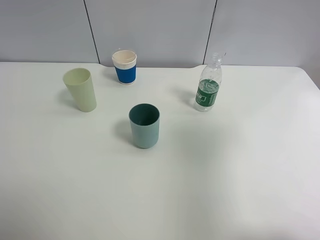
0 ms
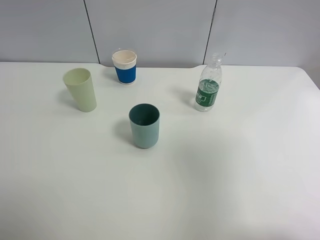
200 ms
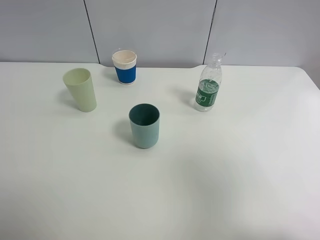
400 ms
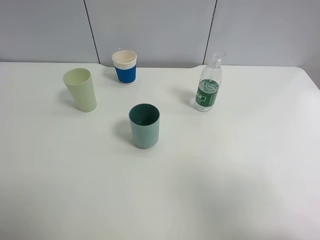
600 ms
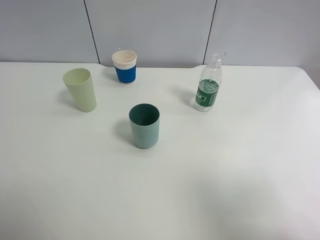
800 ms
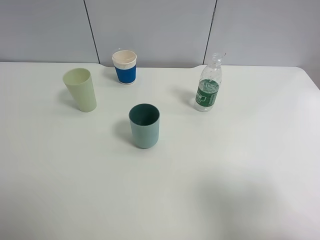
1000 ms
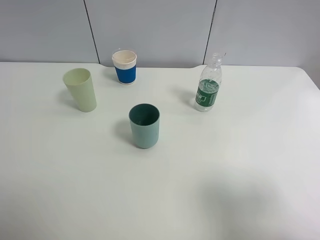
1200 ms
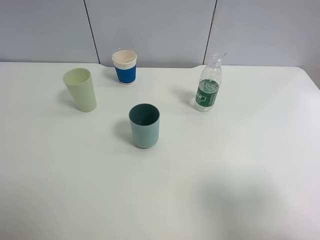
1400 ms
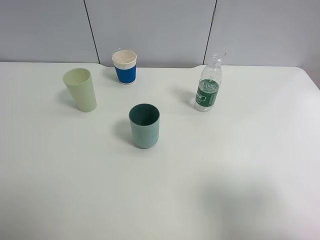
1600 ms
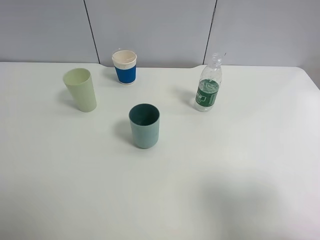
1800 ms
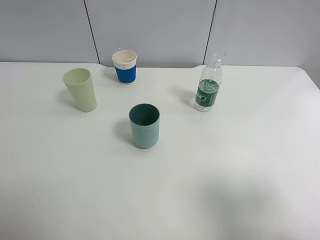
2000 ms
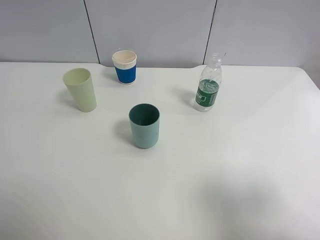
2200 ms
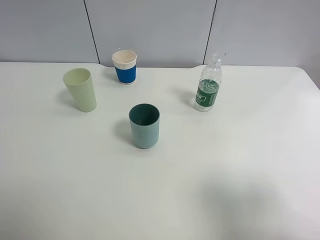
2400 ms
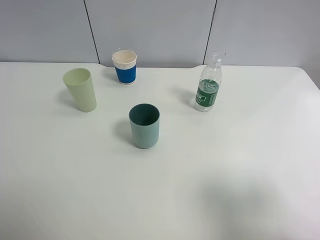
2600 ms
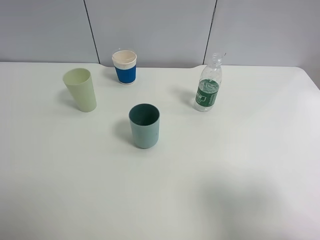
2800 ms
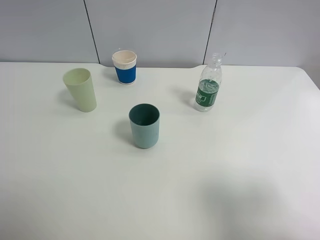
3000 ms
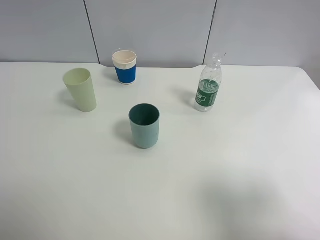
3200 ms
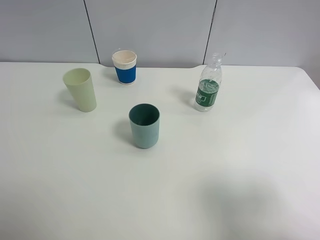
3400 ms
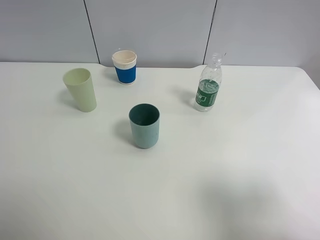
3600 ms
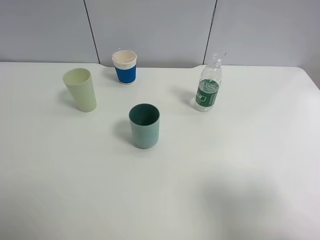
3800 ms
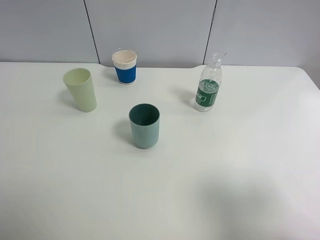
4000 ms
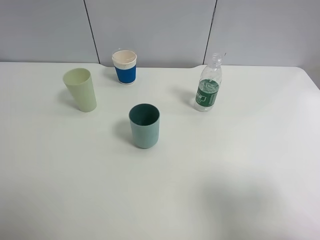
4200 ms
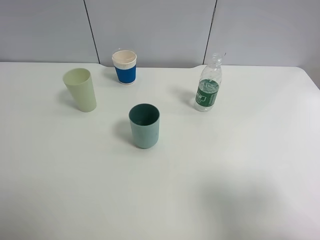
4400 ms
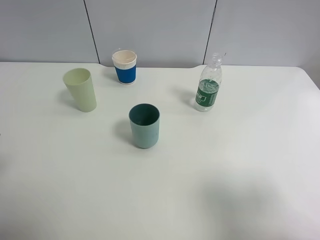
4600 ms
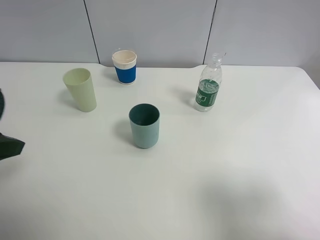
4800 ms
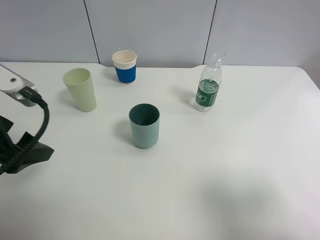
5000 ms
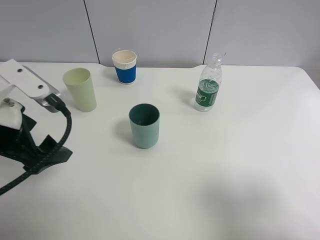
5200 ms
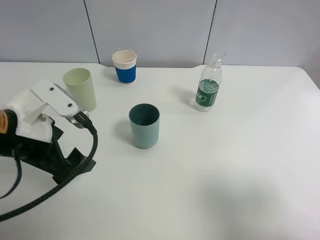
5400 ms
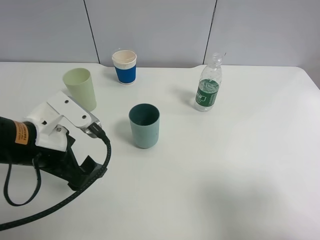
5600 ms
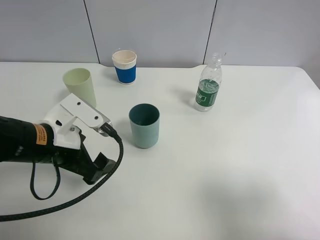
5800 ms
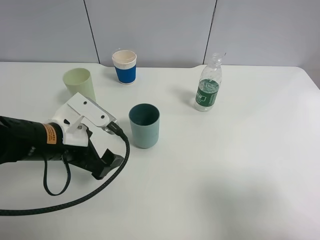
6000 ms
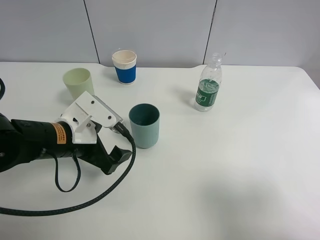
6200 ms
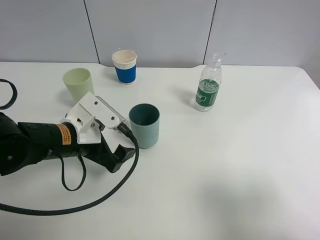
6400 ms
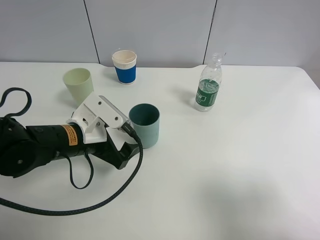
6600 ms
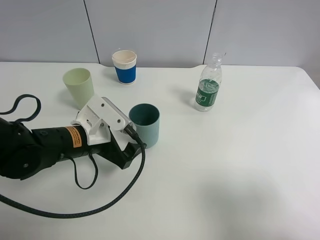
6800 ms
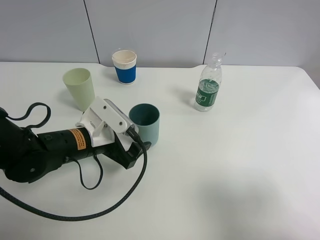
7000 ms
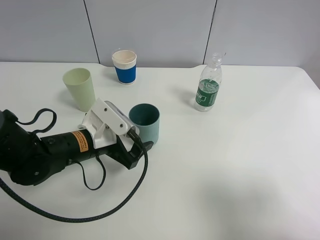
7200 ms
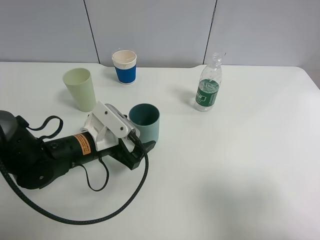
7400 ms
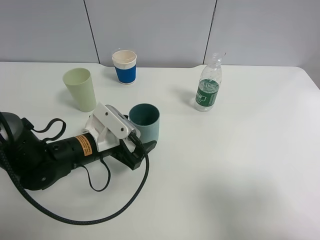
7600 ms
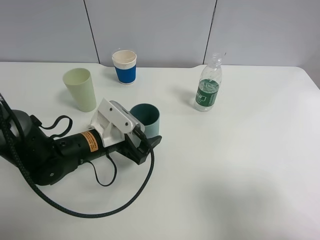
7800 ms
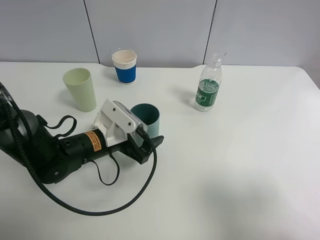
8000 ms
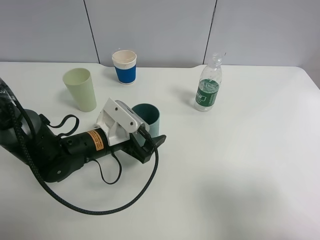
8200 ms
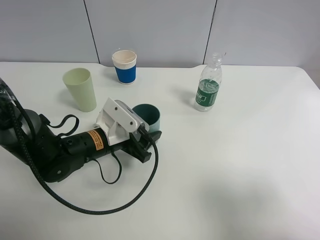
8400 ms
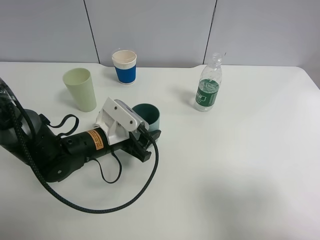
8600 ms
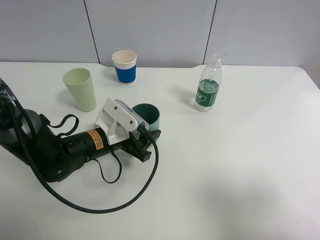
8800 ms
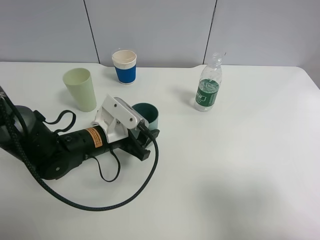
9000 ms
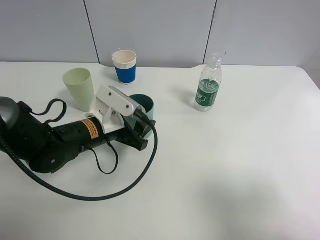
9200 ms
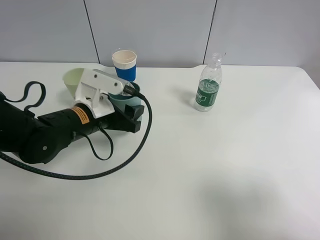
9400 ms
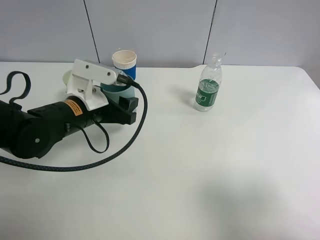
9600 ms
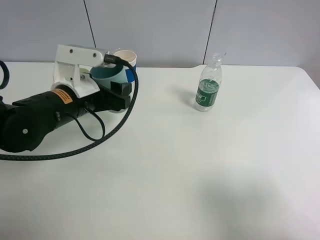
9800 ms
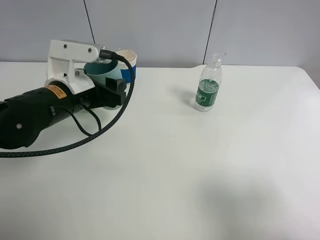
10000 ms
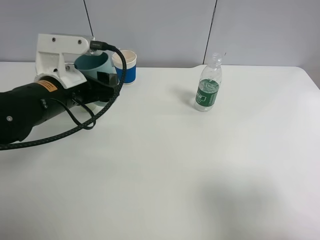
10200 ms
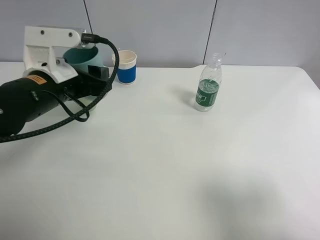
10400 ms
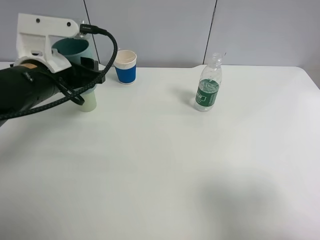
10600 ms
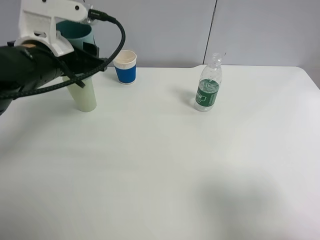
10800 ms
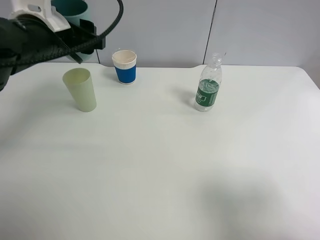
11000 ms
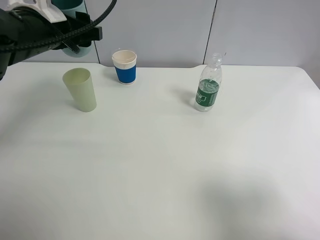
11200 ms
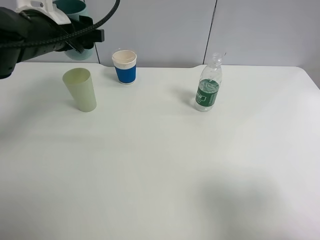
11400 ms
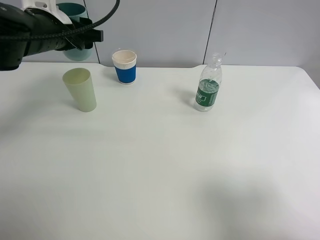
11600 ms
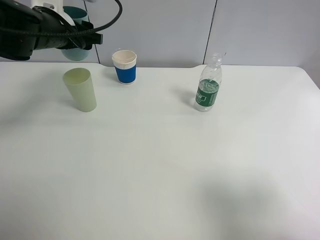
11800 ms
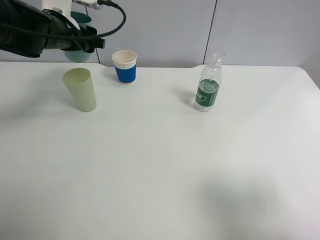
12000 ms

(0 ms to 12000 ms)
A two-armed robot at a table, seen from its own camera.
Task of the whole recording: use a clamp to hold the bottle of the drink, pour the beverage into a random cup, then clamp the cup containing the drink and pour the drink into another random cup.
Step, 0 ms - 10000 ms: Pick up the blue plastic cup bottle with left gripper.
0 ms - 1600 ms: The right gripper moves backward and downward, approximately 15 cm.
1600 ms - 3000 ms: Both grippers stay about where they are.
4400 ms - 6000 ms: The left gripper is displaced to the right, downward and forward by roughly 25 cm.
6000 ms - 7600 ms: The left gripper shifts approximately 5 cm downward.
7600 ms - 9000 ms: The left gripper closes.
9000 ms - 10400 ms: The left gripper shifts roughly 15 cm upward and to the left.
10400 ms - 12000 ms: The left gripper shifts roughly 15 cm forward.

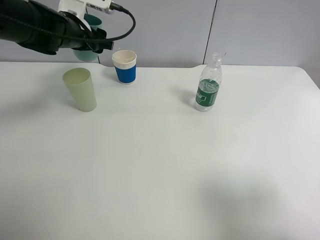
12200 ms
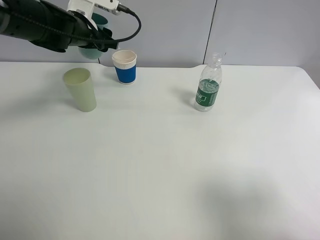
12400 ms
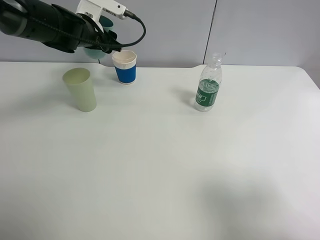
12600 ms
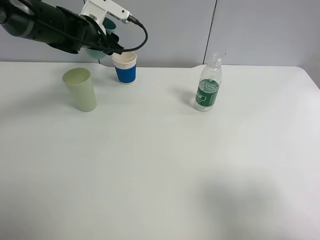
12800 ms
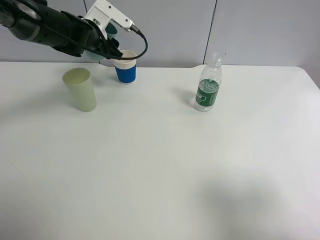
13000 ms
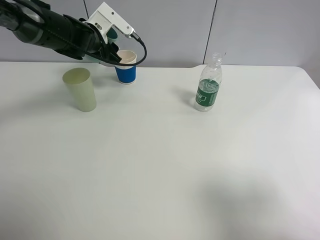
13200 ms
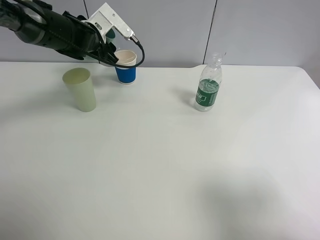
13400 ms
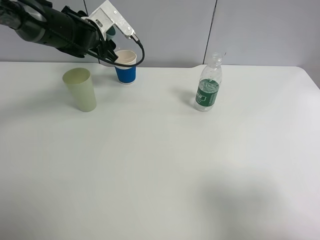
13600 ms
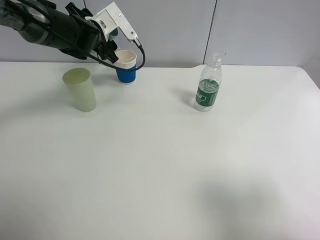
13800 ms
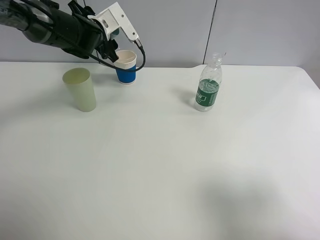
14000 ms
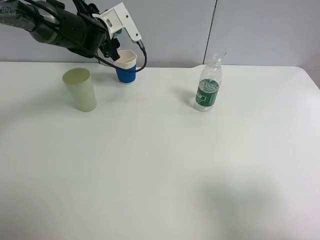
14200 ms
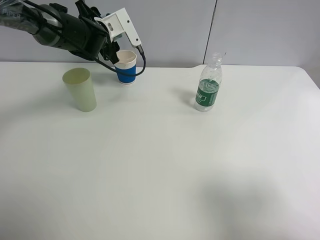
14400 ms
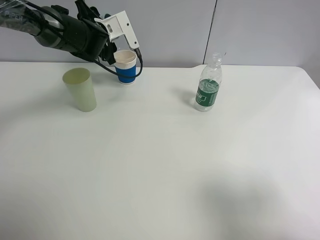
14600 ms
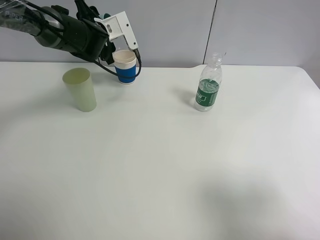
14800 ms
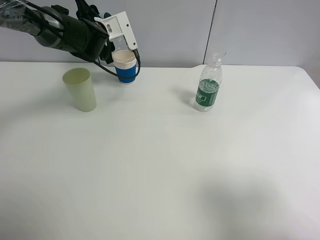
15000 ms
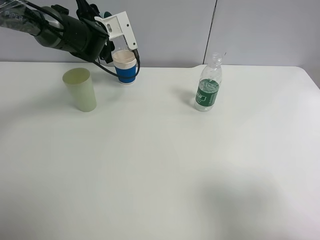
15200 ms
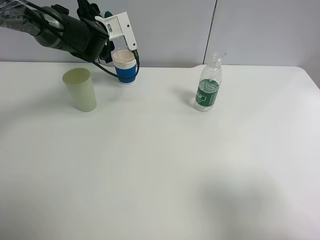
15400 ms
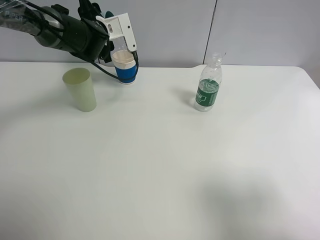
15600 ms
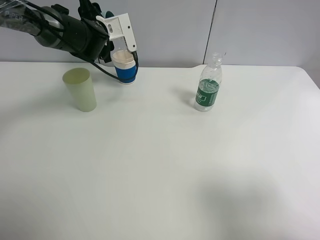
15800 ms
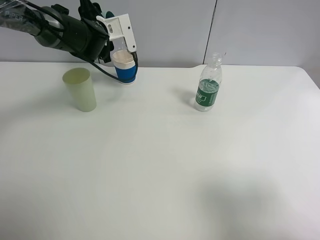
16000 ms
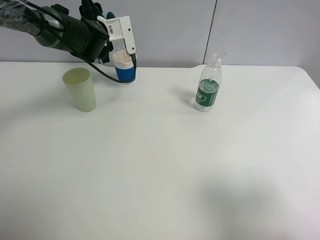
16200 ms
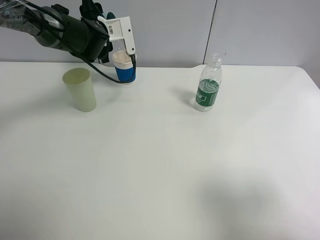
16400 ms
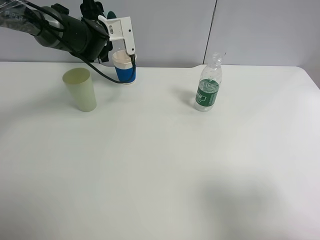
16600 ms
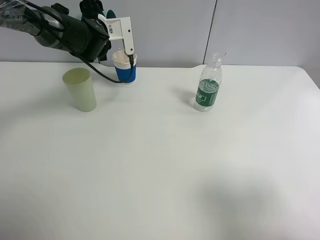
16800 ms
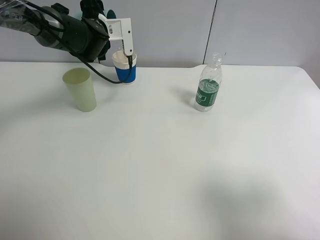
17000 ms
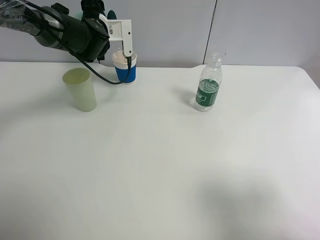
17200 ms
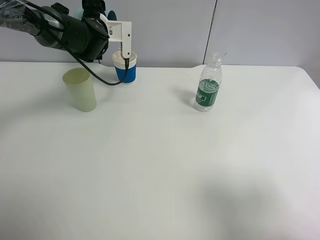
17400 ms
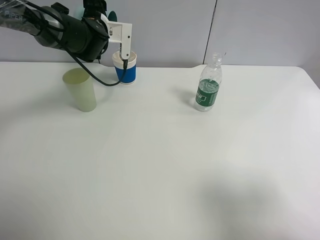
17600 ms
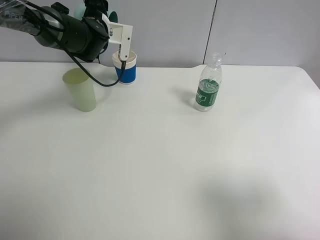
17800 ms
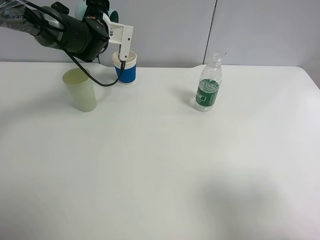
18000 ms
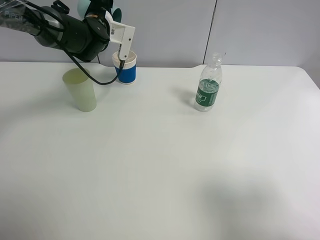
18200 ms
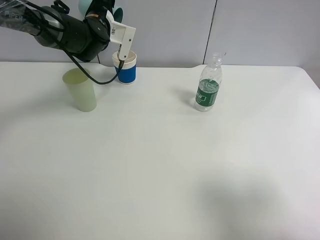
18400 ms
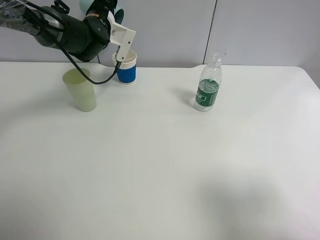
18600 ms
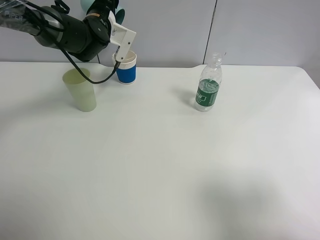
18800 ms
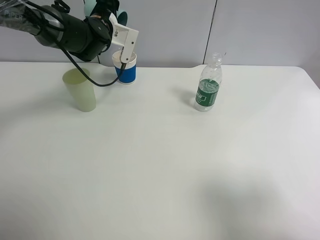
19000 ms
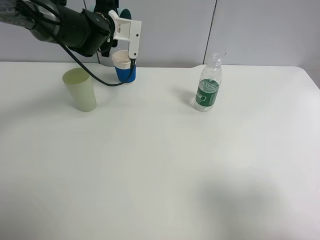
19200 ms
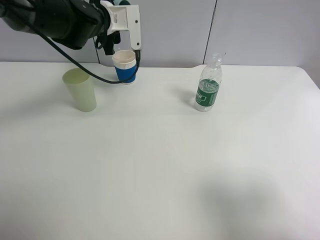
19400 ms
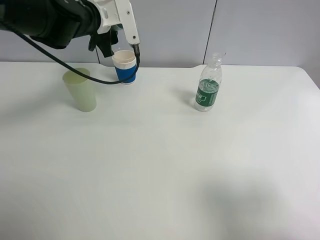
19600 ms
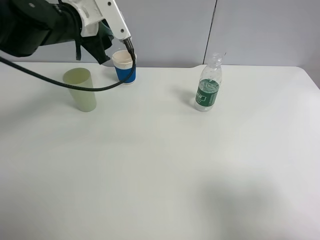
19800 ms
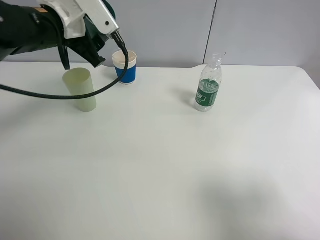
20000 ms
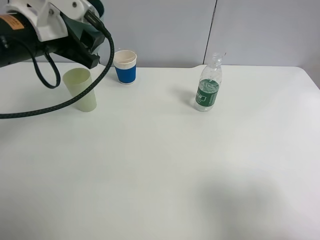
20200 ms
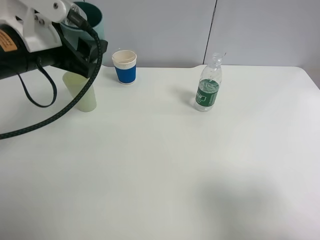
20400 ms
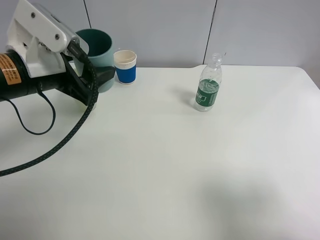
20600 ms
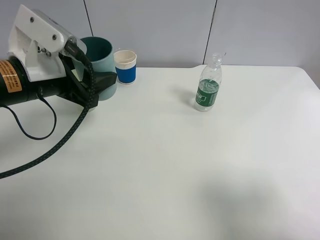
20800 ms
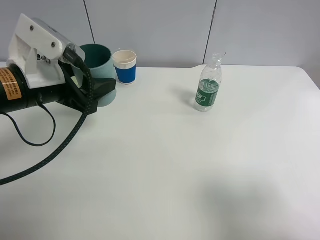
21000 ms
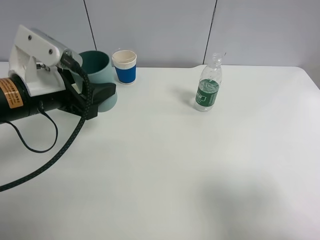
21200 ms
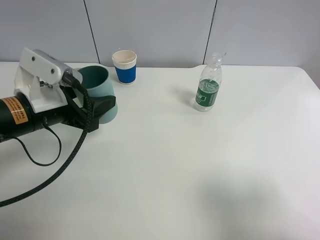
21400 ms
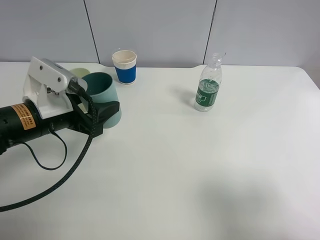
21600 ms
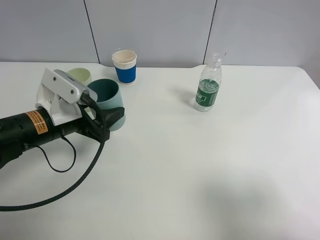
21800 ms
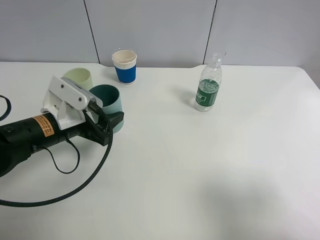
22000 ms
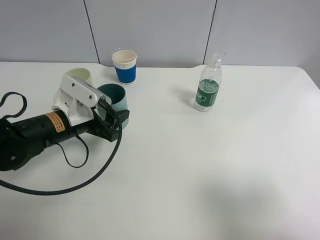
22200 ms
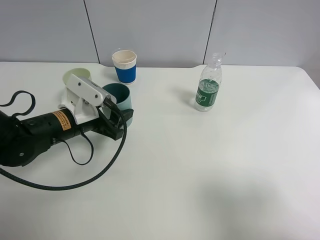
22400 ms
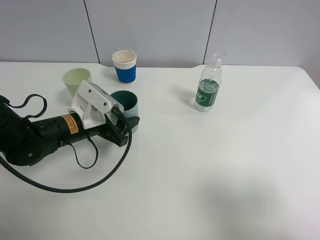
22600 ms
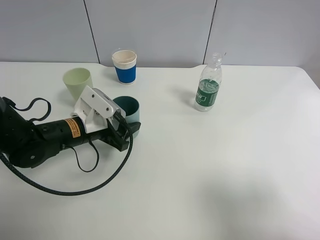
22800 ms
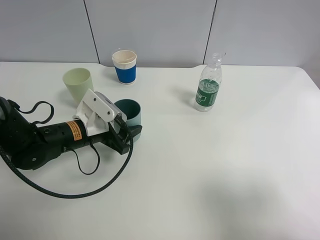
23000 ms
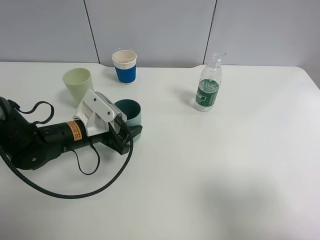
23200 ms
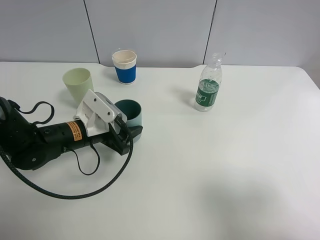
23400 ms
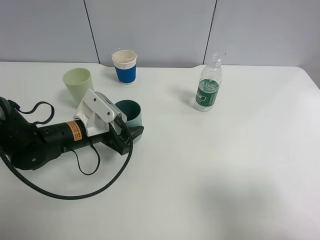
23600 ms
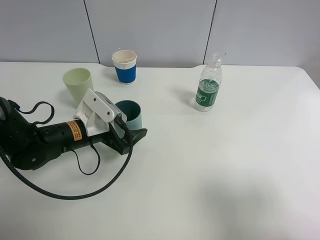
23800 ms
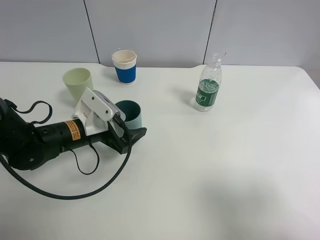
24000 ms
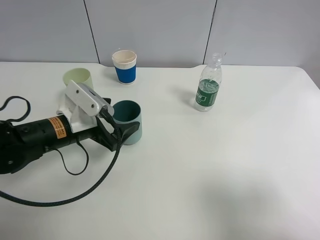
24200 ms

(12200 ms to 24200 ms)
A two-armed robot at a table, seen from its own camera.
Task of the whole recording: use a clamp to hold the bottle of the drink, pour the beverage into a random cup, then clamp the cup containing the drink and pour the drink into another random cup.
Step, 12200 ms - 19200 ms: Pour water into the paper cup with left gripper.
Step, 19400 ms - 23800 ms: Place the blue plastic cup on the table with left gripper.
12200 ms - 13800 ms: The left gripper ends up some 5 cm from where it was.
13800 ms - 15200 ms: The grippers move only a little.
15200 ms - 16600 ms: The grippers move only a little.
18200 ms - 19800 ms: The left gripper travels backward and upward by approximately 15 cm.
19800 ms - 21200 ms: The left gripper heads backward, covering roughly 15 cm.
21200 ms - 22600 ms: The left gripper moves downward, some 10 cm.
22600 ms - 24200 ms: The left gripper opens its fingers.
